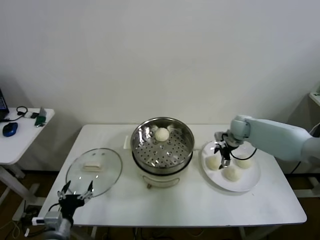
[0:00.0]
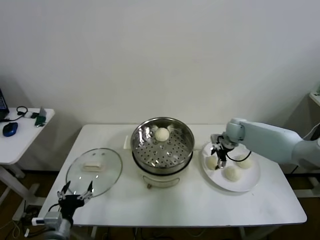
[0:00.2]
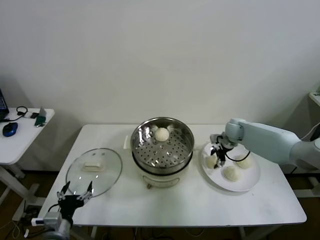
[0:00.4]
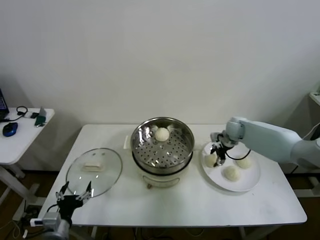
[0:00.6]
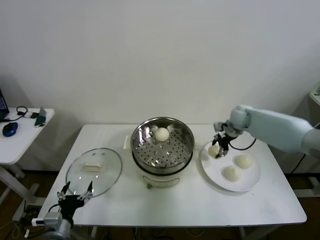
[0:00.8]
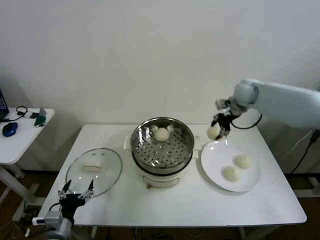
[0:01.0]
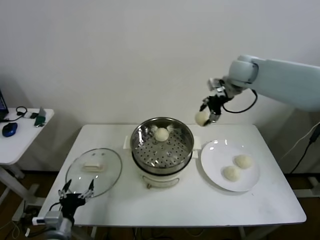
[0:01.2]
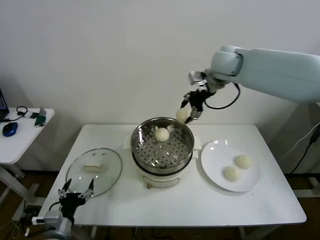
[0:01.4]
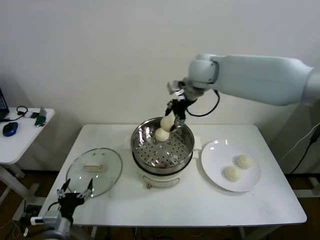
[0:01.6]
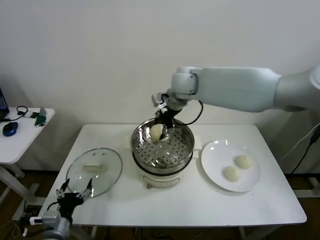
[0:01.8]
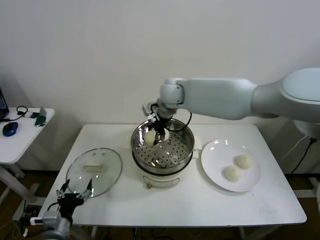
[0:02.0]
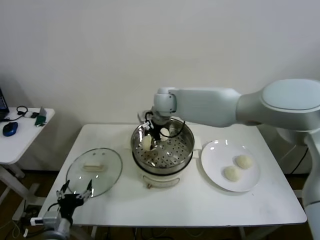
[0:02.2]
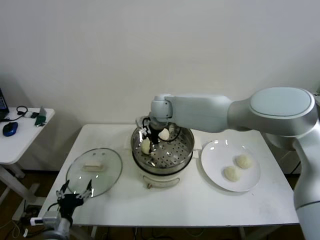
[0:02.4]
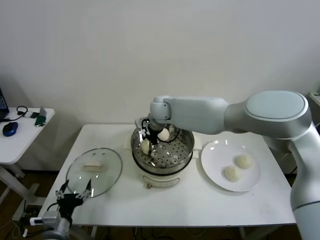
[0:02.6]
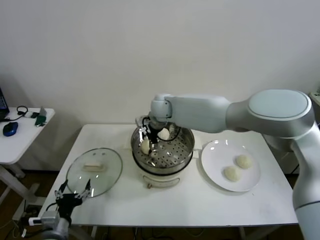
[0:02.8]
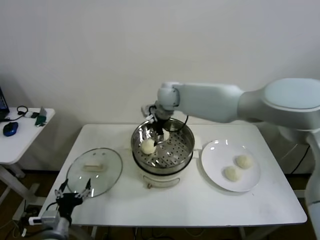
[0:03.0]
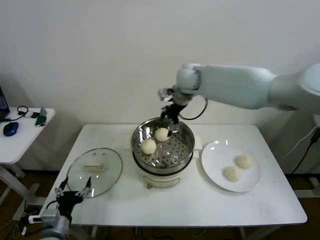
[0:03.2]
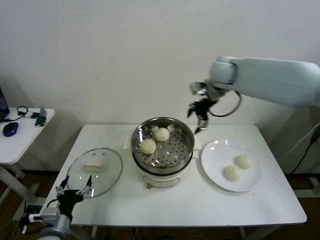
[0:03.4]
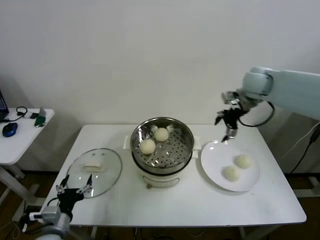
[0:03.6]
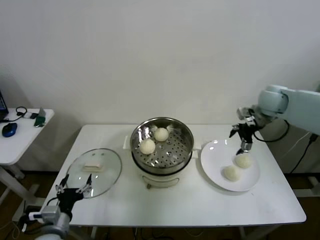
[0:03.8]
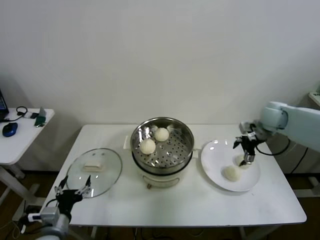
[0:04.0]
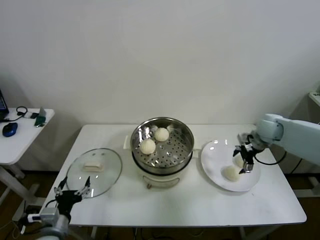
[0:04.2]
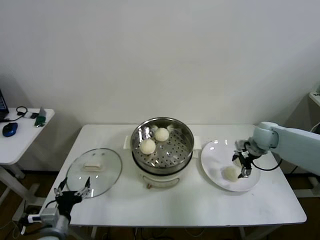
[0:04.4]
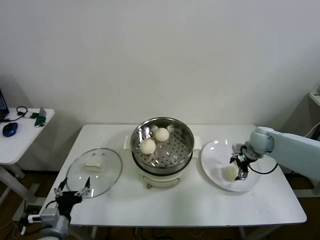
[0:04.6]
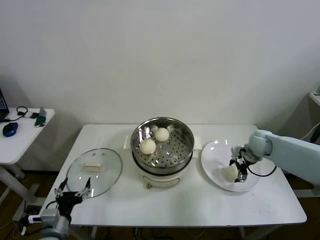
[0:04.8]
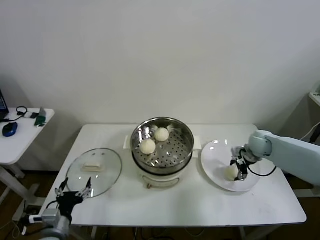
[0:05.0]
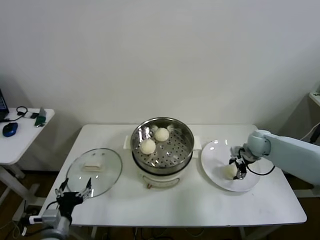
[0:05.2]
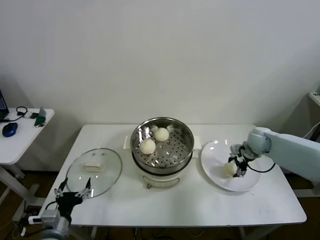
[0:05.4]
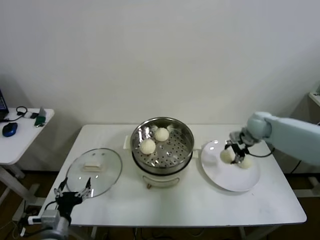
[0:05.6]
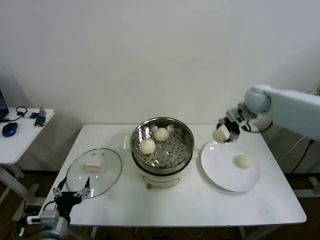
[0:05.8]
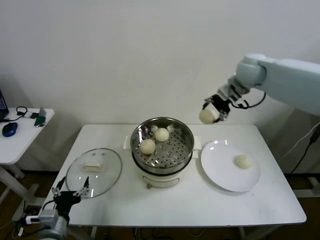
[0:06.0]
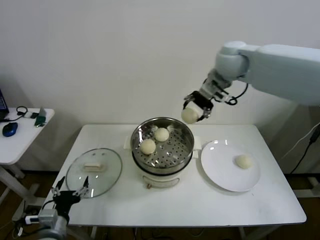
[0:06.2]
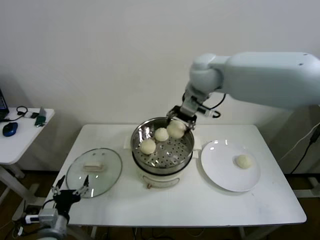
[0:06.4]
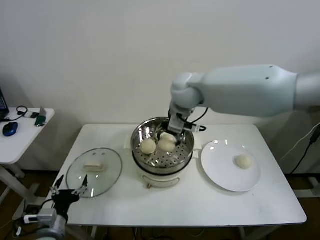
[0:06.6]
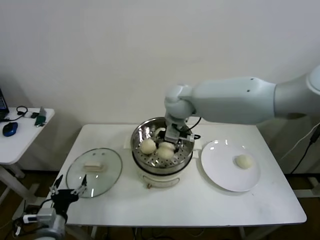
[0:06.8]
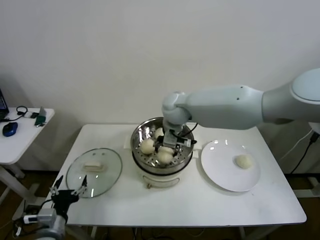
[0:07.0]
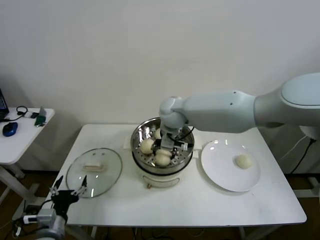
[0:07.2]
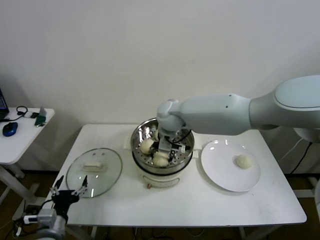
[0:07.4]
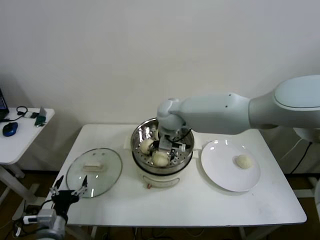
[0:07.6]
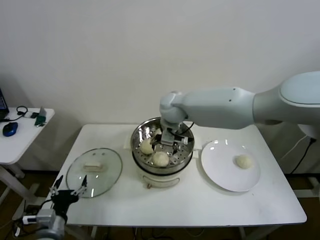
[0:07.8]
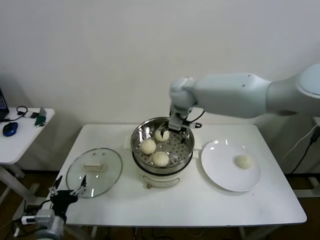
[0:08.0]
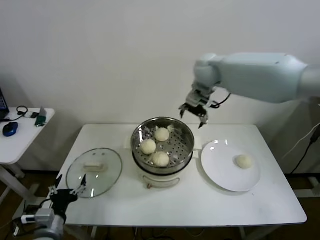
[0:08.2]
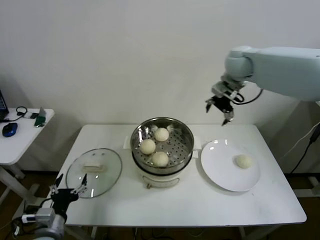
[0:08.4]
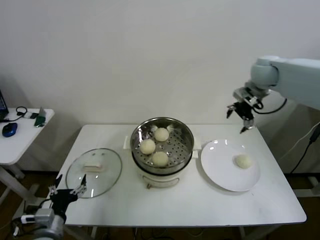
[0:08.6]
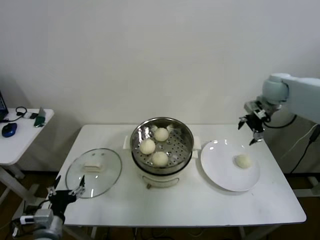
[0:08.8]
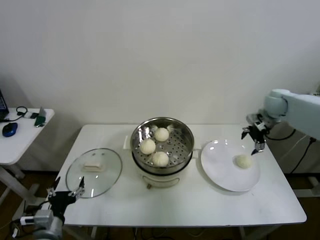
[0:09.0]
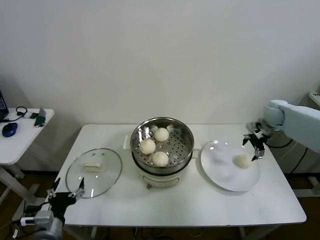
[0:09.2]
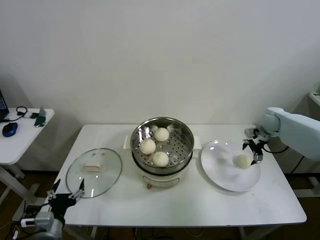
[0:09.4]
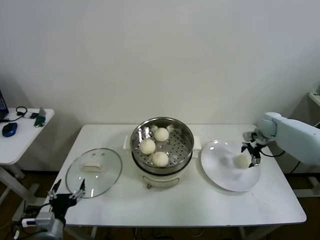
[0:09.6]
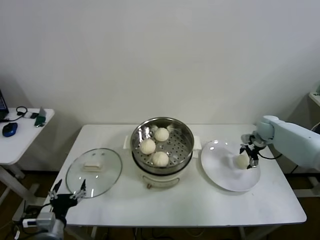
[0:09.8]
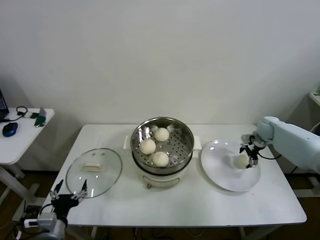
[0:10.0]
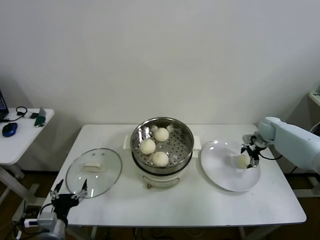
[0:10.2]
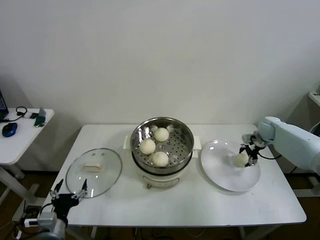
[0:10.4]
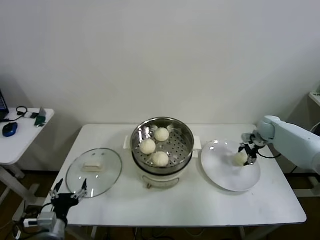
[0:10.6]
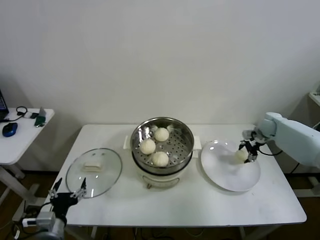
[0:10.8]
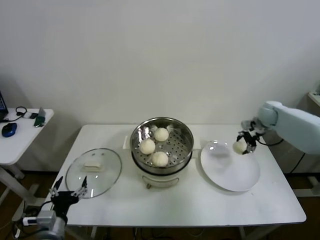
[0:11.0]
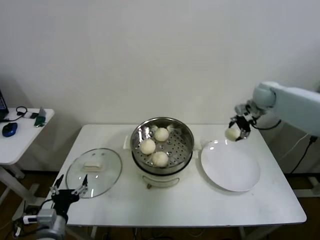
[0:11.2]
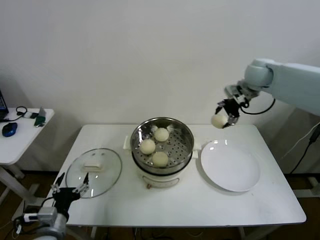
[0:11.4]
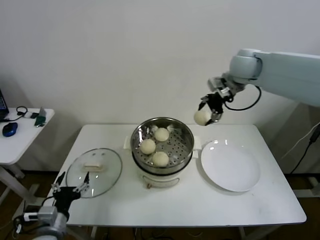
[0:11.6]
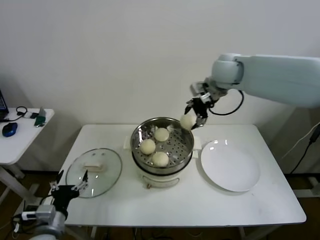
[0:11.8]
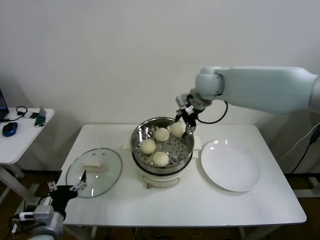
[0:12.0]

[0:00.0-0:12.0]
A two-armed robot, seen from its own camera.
Step, 0:00.6 to 0:02.4: Place the baozi on the steamer with right gripper.
Step, 0:02.6 to 0:04.8: Grasp the baozi in the plate with right gripper.
Step, 0:05.0 to 0:07.6: Place the baozi on the steamer with right gripper.
Step, 0:08.0 to 0:10.4: Grasp the baozi in the plate with right gripper.
0:00.0 to 0:01.6: The right gripper is displaced upward and to the left by roughly 35 cm, and closes its fingers.
0:01.6 to 0:03.0: The right gripper shifts roughly 10 cm downward and to the left, and opens up.
0:03.0 to 0:04.4: The right gripper moves to the right and downward, some 40 cm.
0:04.4 to 0:06.0: The right gripper heads upward and to the left, covering approximately 30 cm, and closes its fingers.
0:06.0 to 0:07.6: The right gripper travels to the left and downward by approximately 25 cm, and opens its fingers.
0:07.6 to 0:09.0: The right gripper goes roughly 40 cm to the right.
0:09.0 to 0:10.4: The right gripper shifts approximately 15 cm downward, and closes its fingers.
0:10.4 to 0:12.0: The right gripper travels to the left and upward by some 40 cm.

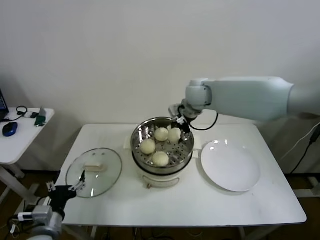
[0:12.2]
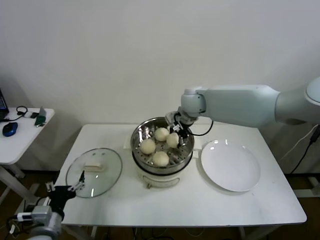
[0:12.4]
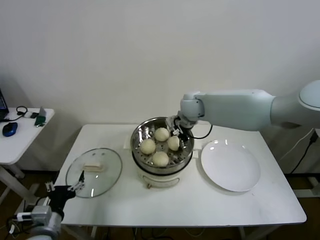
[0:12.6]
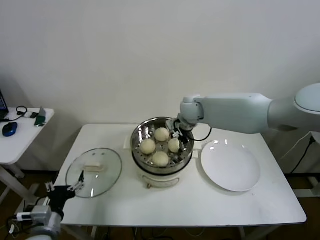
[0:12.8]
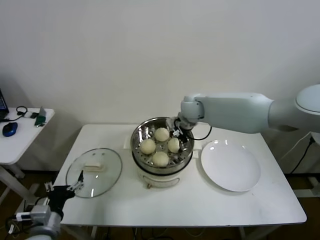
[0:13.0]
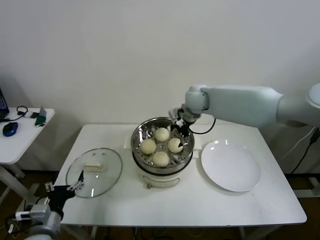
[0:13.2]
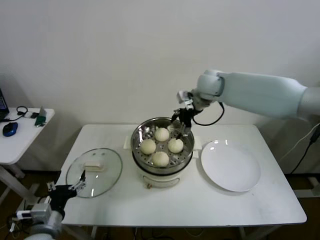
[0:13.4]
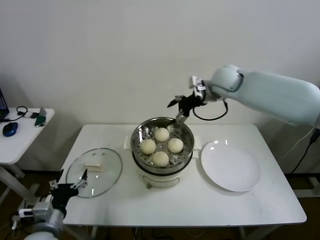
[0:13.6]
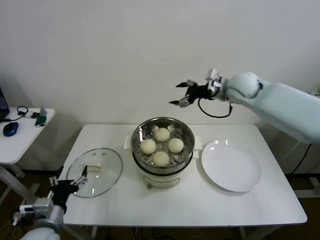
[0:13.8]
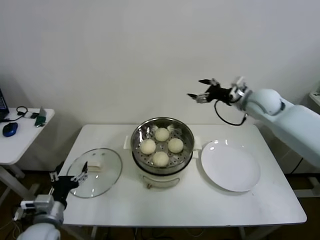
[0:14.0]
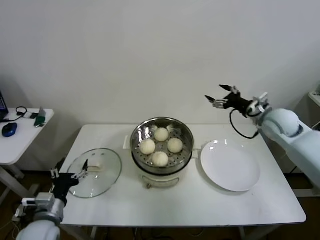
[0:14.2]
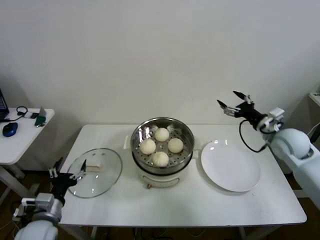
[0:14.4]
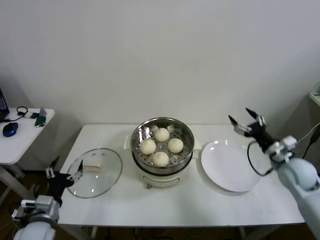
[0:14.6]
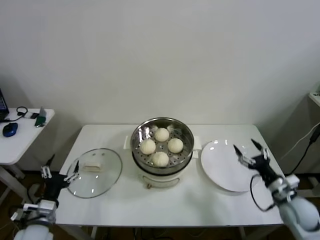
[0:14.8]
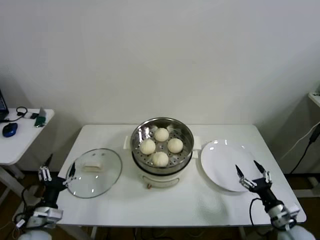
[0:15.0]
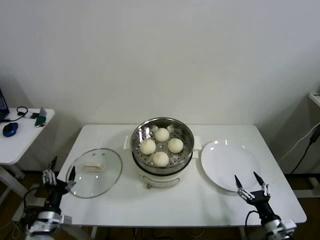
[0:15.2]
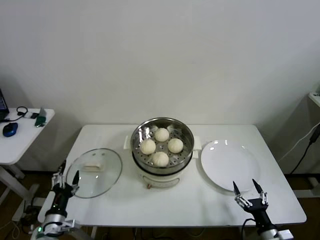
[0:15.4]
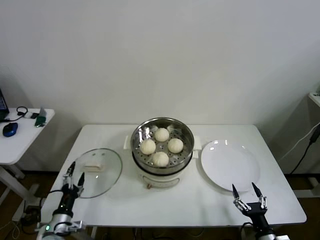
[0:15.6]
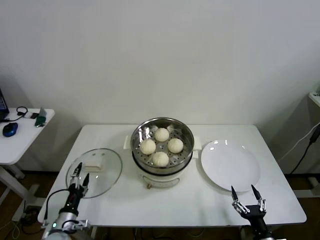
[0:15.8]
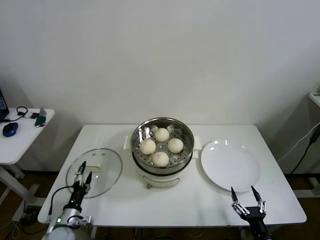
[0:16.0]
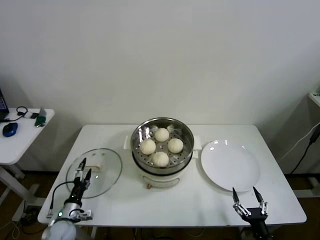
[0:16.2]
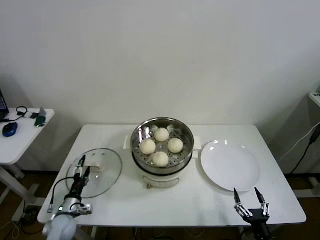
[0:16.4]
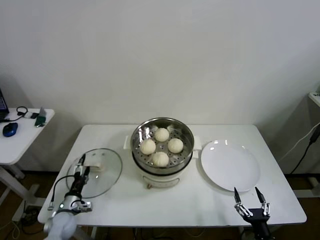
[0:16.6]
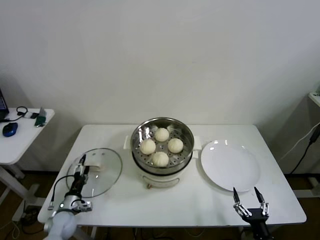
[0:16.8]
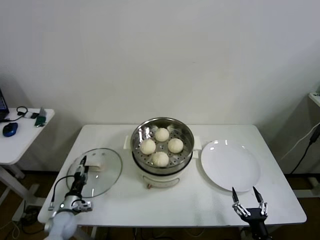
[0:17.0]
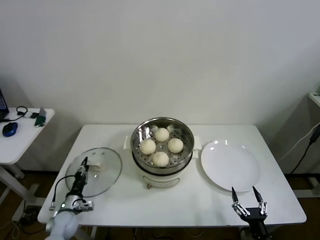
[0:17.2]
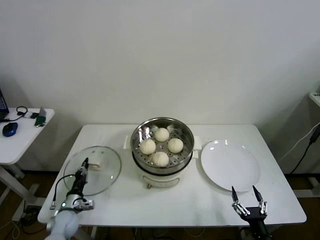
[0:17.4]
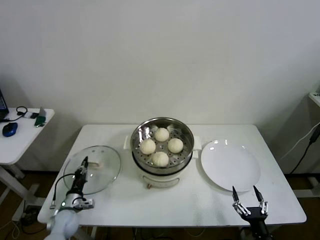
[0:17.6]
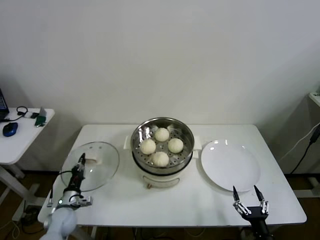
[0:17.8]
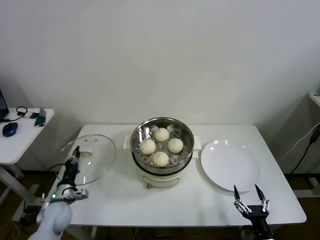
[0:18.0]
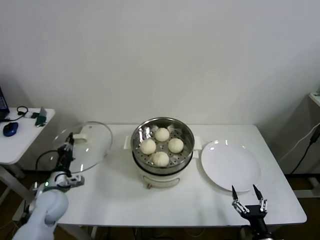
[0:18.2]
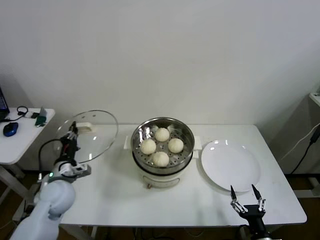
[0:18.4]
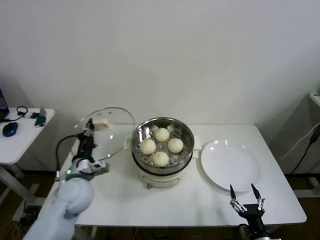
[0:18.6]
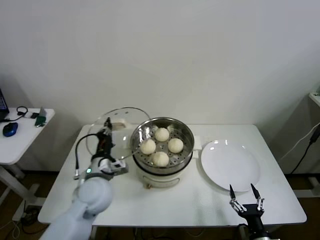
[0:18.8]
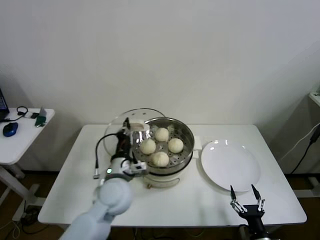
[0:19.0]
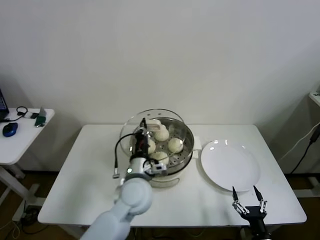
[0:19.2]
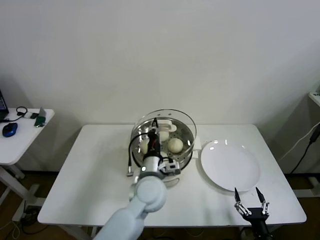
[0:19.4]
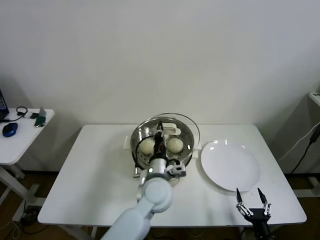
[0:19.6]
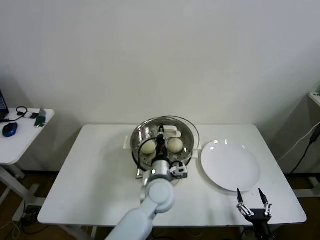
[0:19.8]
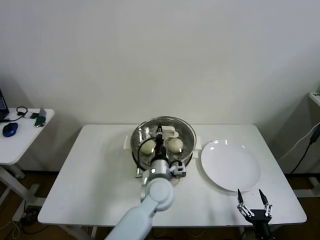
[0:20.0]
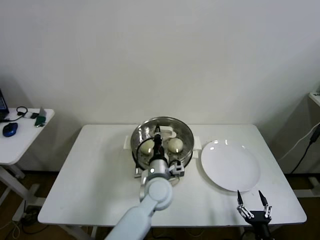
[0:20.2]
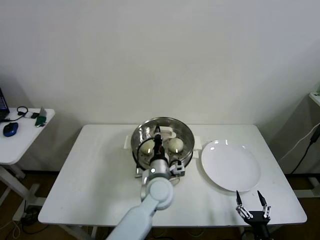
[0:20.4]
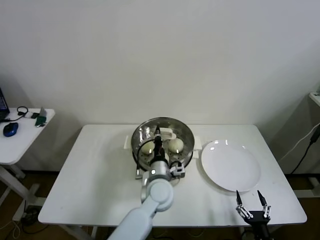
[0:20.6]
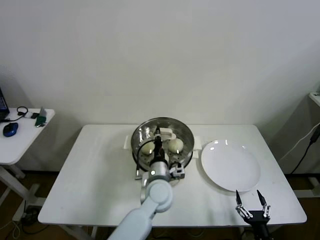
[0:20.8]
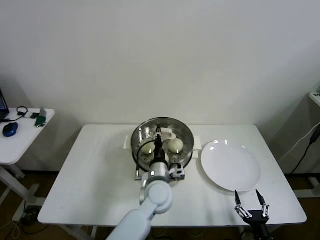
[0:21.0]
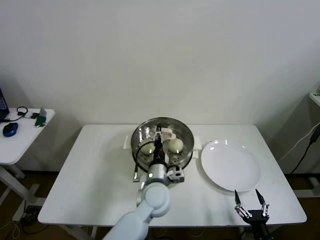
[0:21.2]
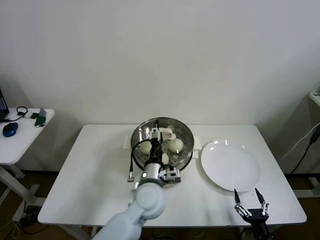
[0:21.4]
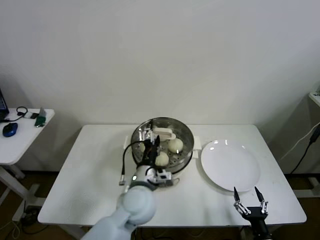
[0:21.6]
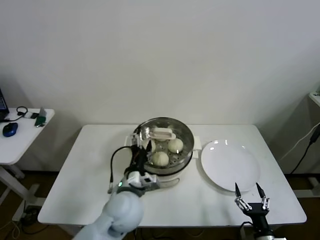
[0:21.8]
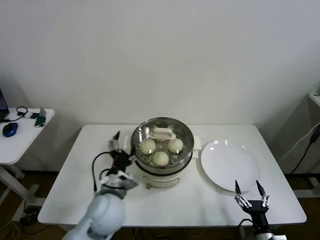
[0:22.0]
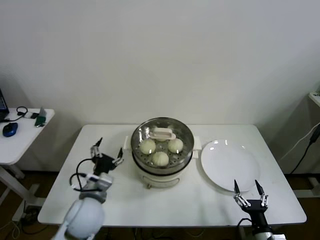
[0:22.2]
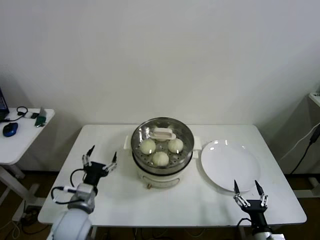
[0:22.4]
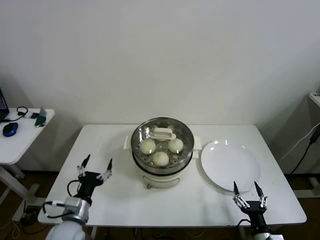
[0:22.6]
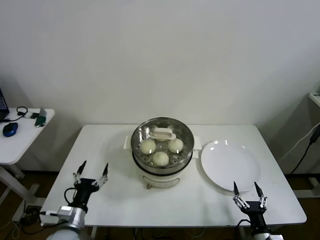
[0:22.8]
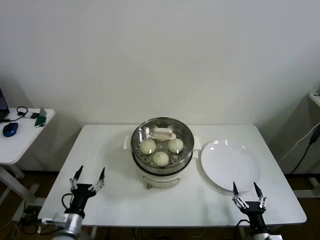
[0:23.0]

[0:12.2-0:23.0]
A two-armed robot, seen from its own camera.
Step, 0:13.2 to 0:17.4: Grasp the pot lid with left gripper.
Step, 0:17.6 to 0:20.8: Place the pot lid on the steamer with left gripper.
0:12.2 to 0:13.8: The right gripper moves to the right, about 15 cm, and opens up.
0:13.8 to 0:15.2: The right gripper travels backward and downward by some 50 cm. The left gripper moves downward, some 5 cm.
0:15.2 to 0:16.8: The right gripper heads backward and to the left, covering about 10 cm. Meanwhile the left gripper goes about 15 cm downward and forward.
0:16.8 to 0:18.4: The left gripper moves upward, roughly 20 cm, and closes up.
0:18.4 to 0:20.0: The left gripper travels to the right by about 35 cm.
0:20.0 to 0:21.4: The left gripper opens its fingers.
0:21.4 to 0:23.0: The left gripper goes approximately 30 cm to the left and backward.
